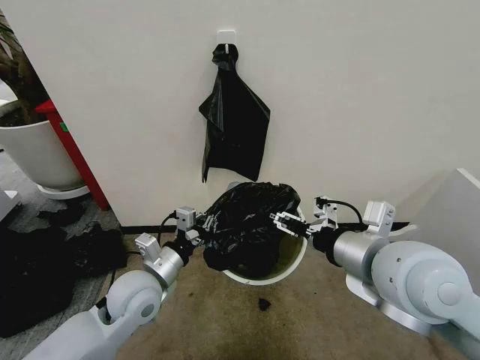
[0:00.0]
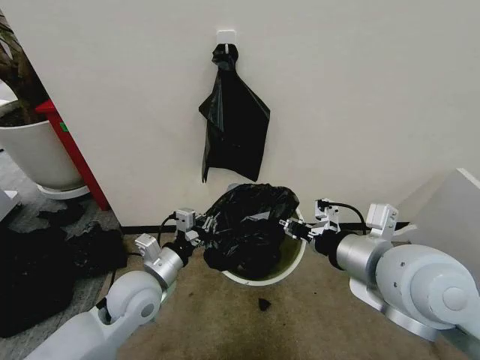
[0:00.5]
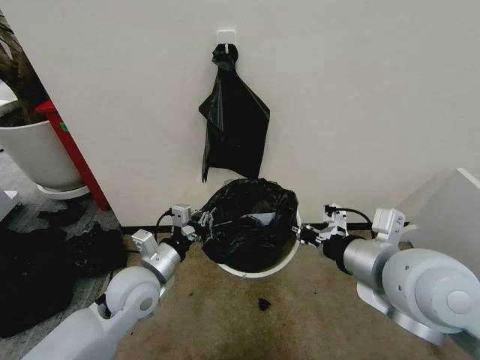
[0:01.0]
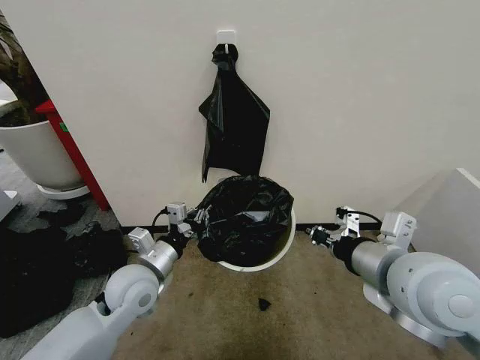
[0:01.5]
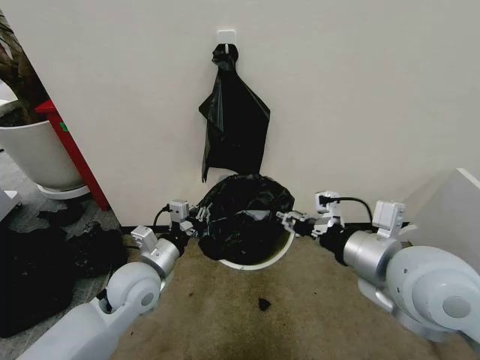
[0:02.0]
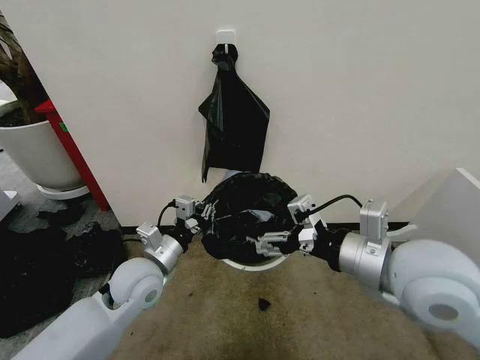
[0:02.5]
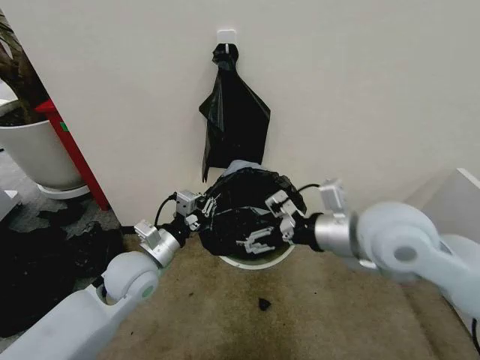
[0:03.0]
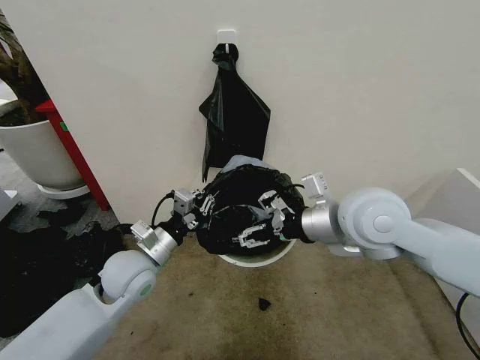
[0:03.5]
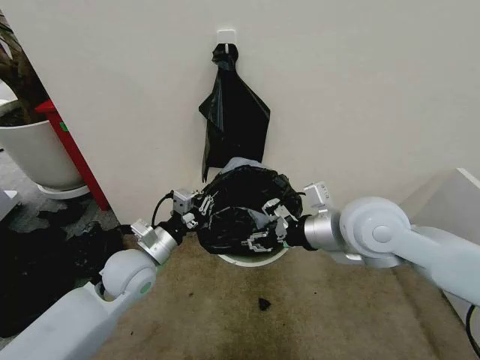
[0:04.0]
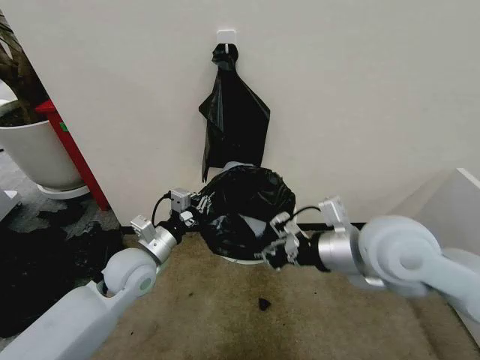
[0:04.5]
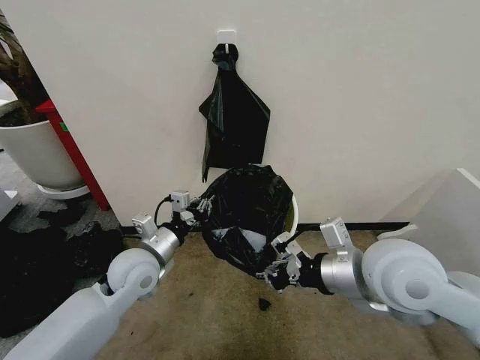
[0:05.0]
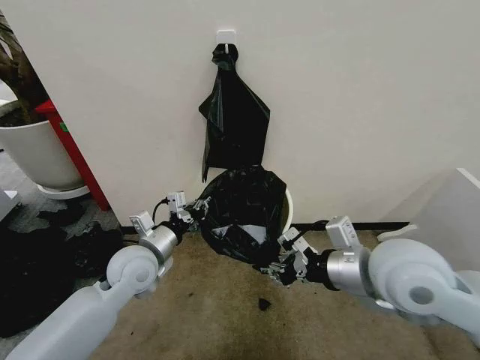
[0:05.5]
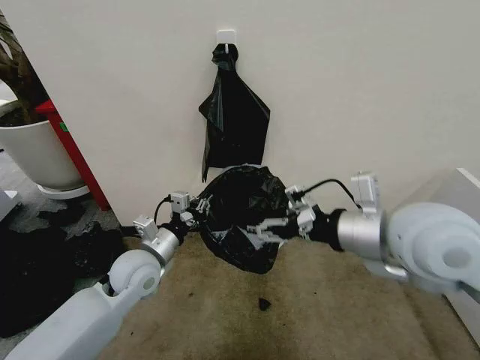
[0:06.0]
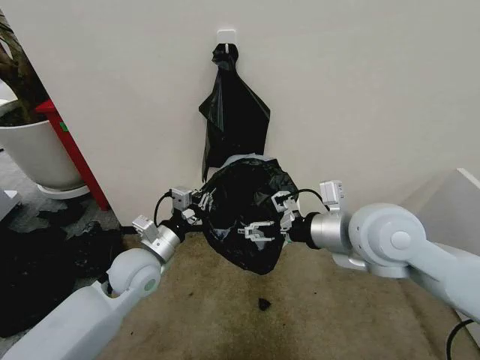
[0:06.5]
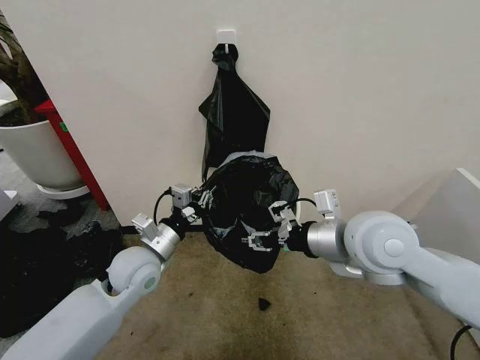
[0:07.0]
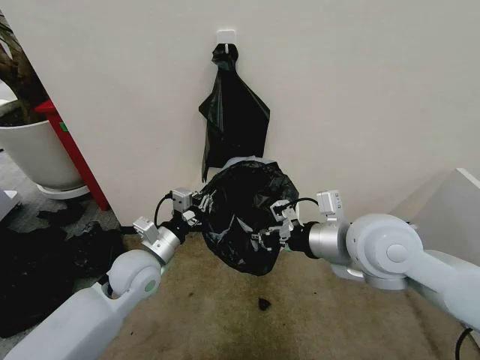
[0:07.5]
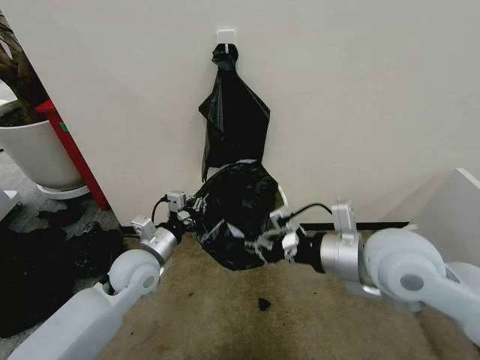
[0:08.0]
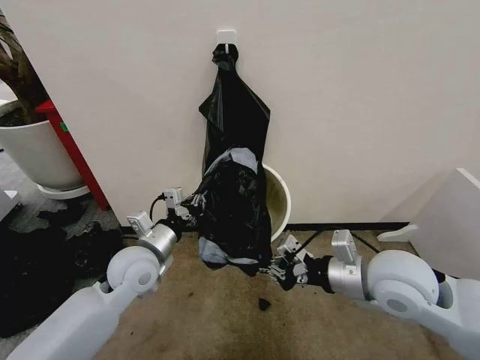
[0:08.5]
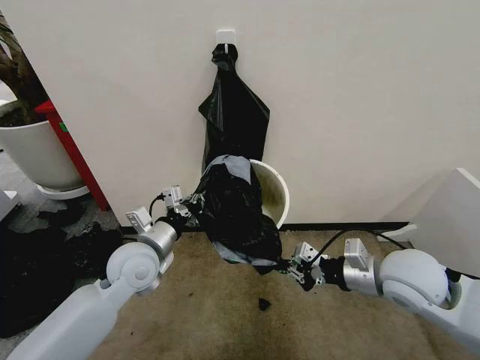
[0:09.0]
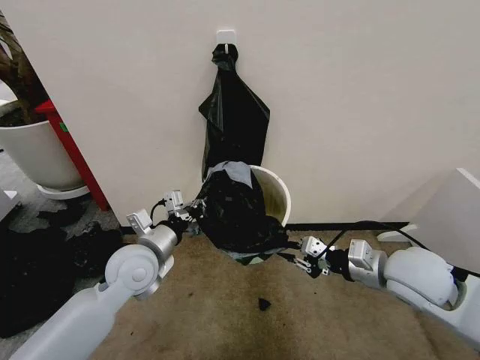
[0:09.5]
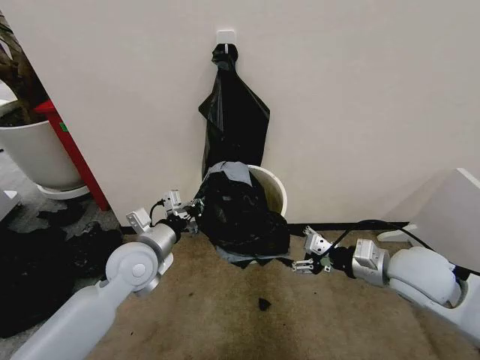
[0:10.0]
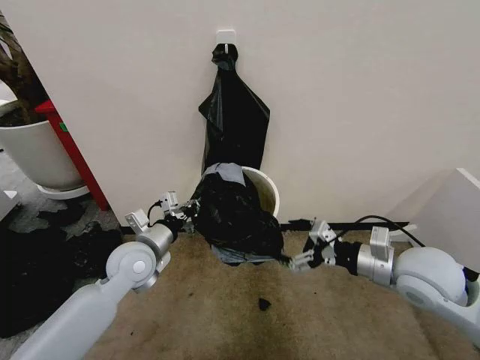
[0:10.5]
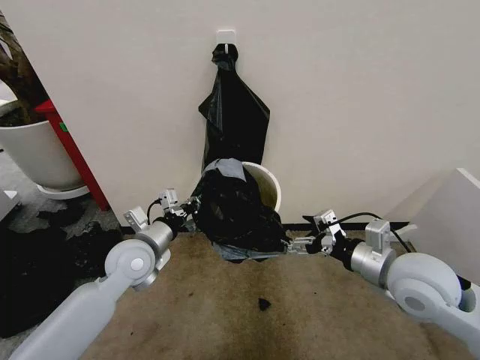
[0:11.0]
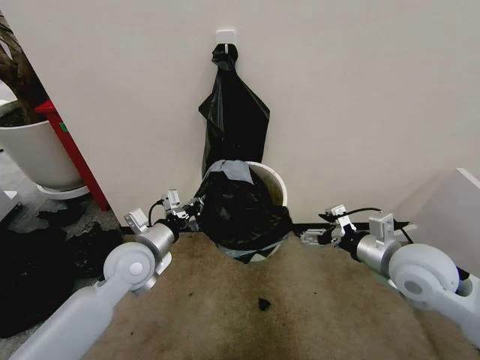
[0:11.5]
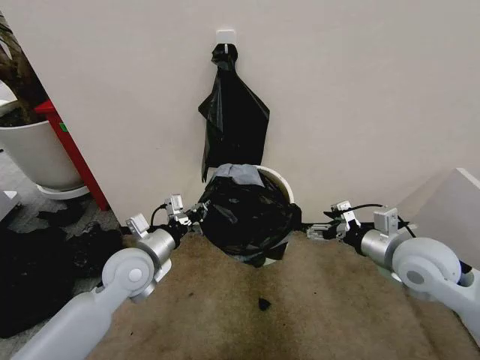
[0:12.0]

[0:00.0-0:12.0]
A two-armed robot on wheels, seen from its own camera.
Task of the whole recording: Place the garbage bag over the trash bin.
0:00.0 to 0:02.0: The grippers stay close to where they were, moving slightly.
0:02.0 to 0:04.0: The right gripper heads forward, covering about 10 cm, and opens, then closes once more.
0:04.0 to 0:06.0: The right gripper goes about 5 cm backward, and closes and opens again.
0:06.0 to 0:08.0: The right gripper moves downward, some 5 cm, and closes up.
0:08.0 to 0:10.0: The right gripper is displaced downward and to the right by approximately 15 cm, and opens up.

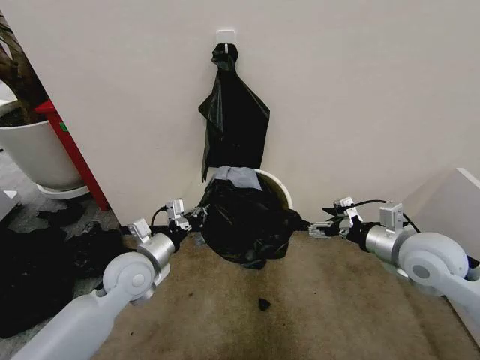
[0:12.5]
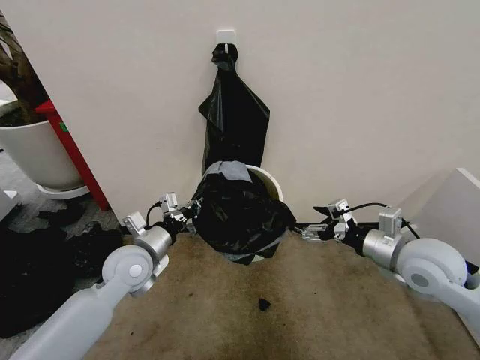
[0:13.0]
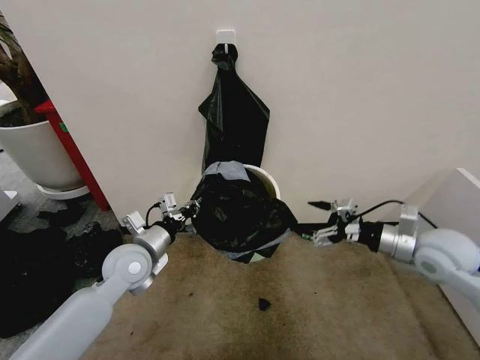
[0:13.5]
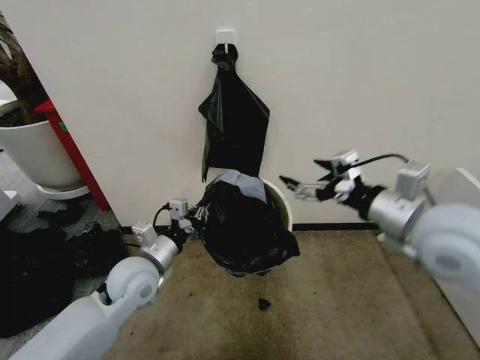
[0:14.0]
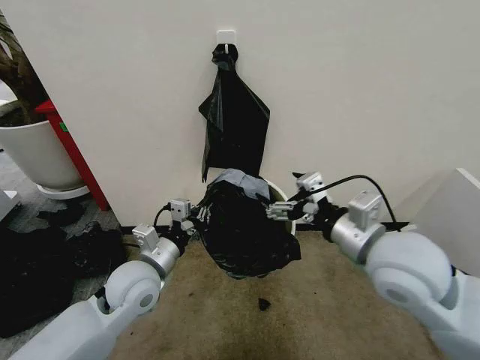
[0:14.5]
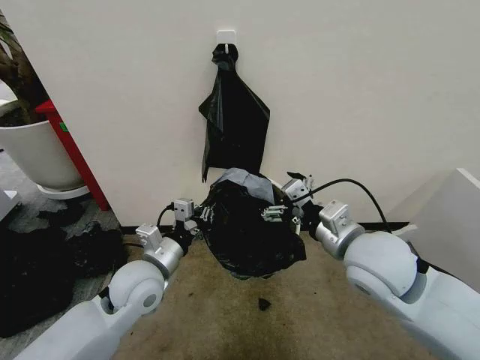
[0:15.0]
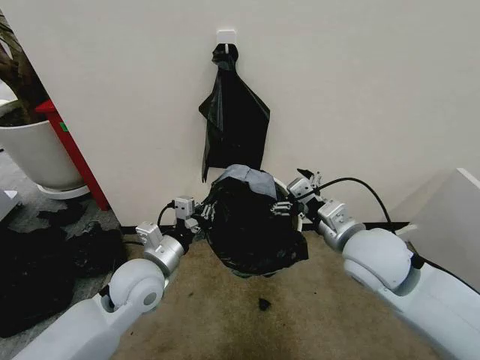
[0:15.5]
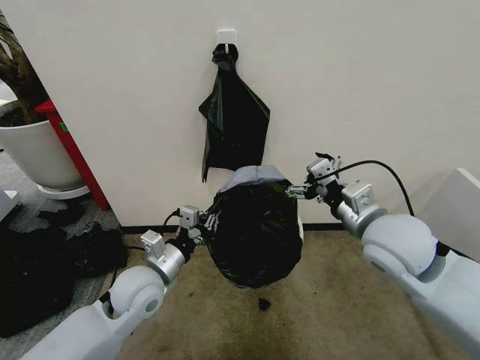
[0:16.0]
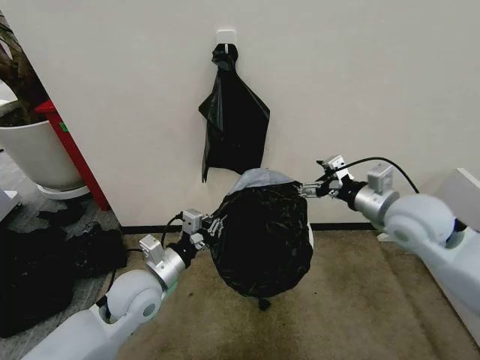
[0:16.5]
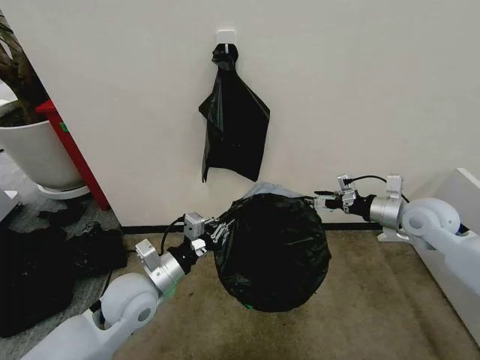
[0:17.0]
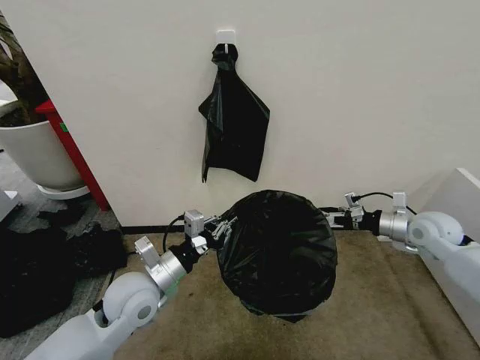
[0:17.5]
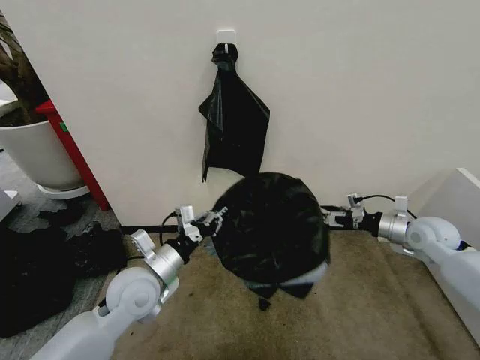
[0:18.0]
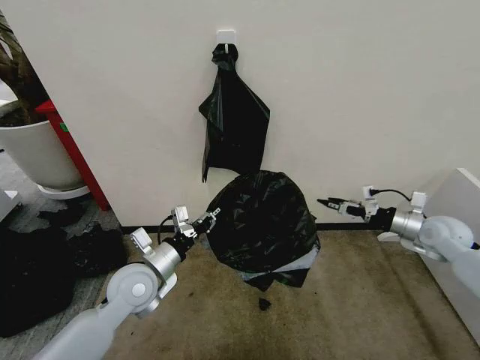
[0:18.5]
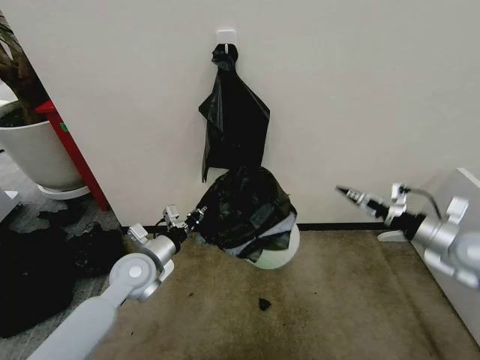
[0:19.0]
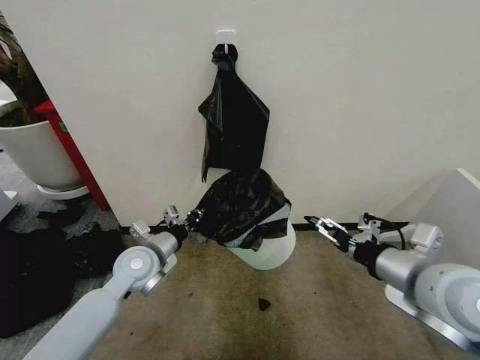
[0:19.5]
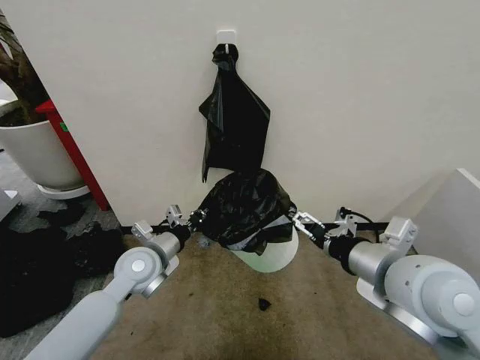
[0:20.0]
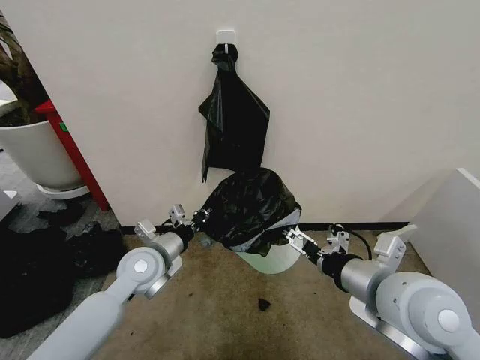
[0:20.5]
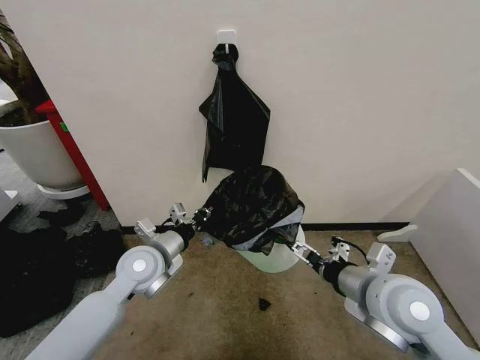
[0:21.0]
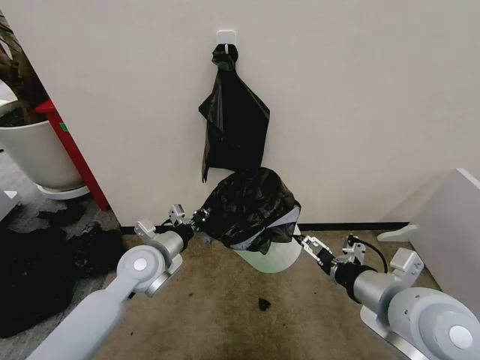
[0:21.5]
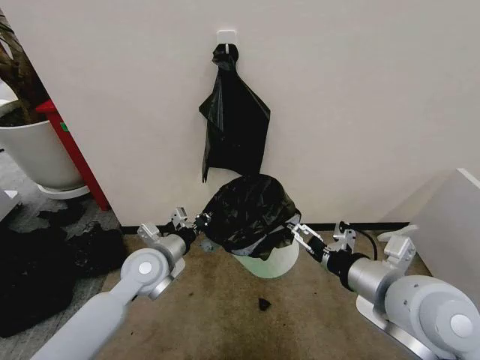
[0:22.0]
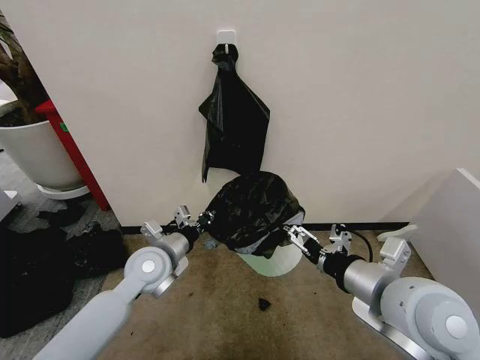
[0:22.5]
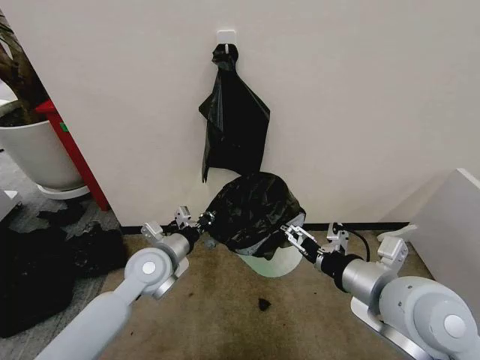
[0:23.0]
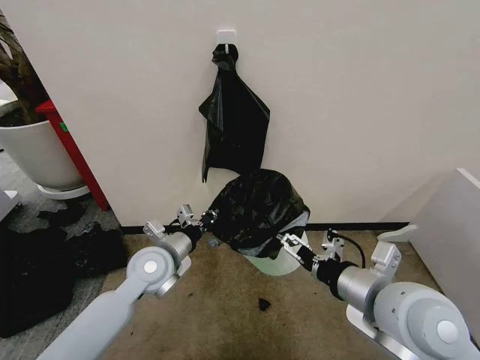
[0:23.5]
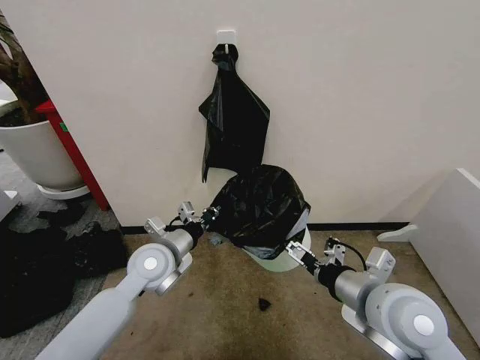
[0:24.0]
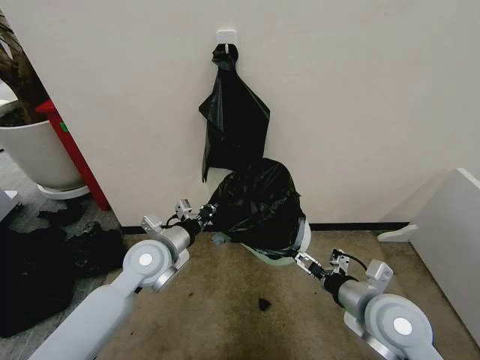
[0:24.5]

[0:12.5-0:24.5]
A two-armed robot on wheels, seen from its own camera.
Task of the whole recording: Place the garbage bag over the trash bin.
0:12.5 to 0:14.5: The right gripper shifts roughly 15 cm to the left, upward and backward.
0:14.5 to 0:16.5: The right gripper is displaced forward and to the right by about 10 cm.
0:16.5 to 0:18.5: The right gripper goes approximately 20 cm to the right and downward.
0:18.5 to 0:20.5: The right gripper is displaced to the left, backward and upward by approximately 35 cm.
0:20.5 to 0:22.5: The grippers make only small movements.
0:22.5 to 0:24.5: The right gripper is displaced downward by approximately 10 cm.

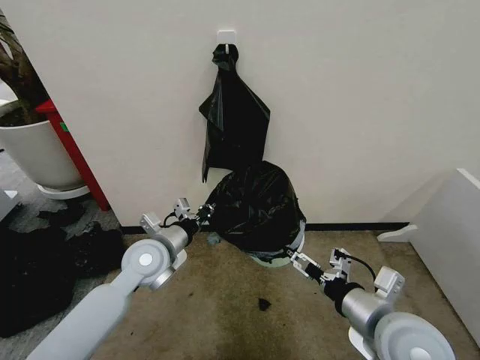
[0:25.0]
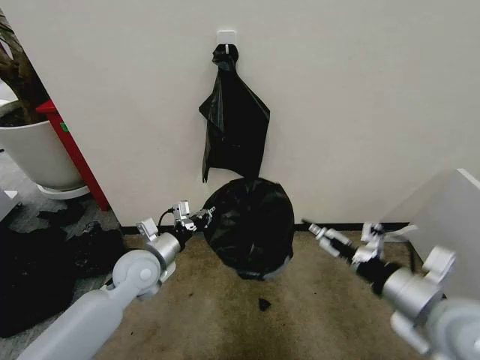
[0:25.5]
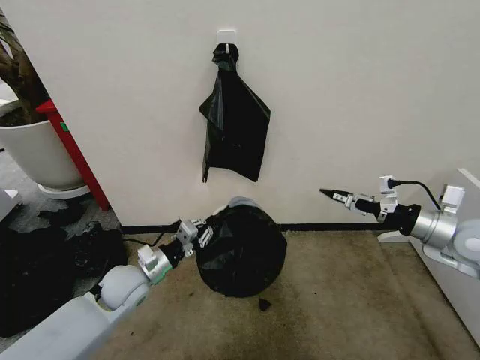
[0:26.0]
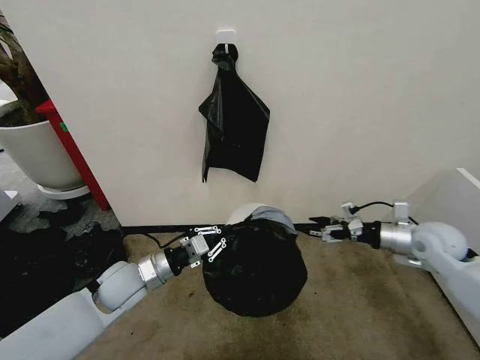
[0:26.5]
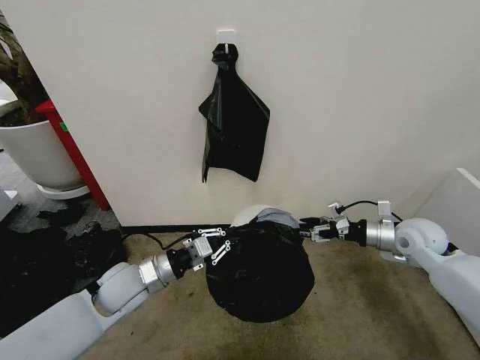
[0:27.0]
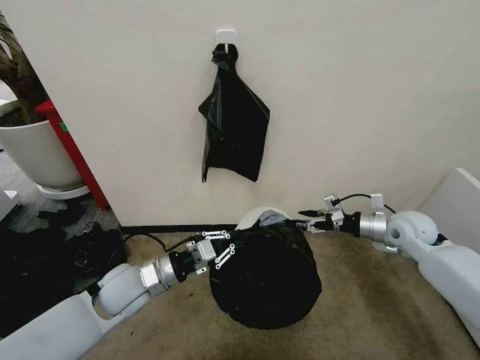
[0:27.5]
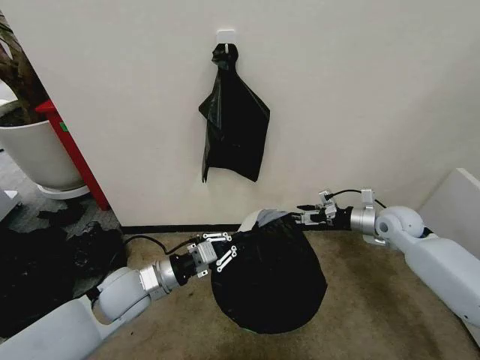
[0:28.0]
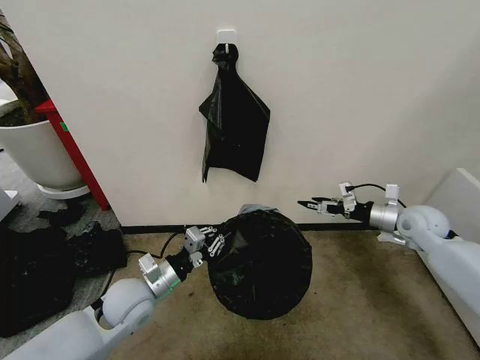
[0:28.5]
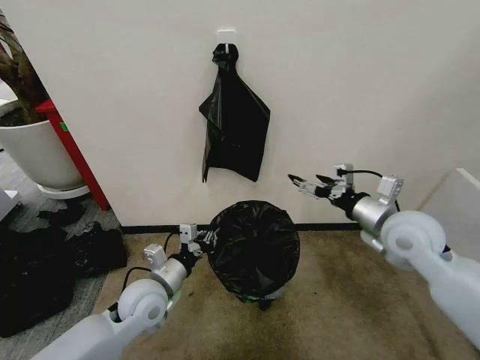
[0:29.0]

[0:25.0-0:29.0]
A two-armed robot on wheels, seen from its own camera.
Task of the whole recording: Place the garbage bag over the trash bin.
0:25.0 to 0:27.0: The right gripper moves forward and to the right, some 25 cm, while the left gripper moves some 5 cm.
0:27.0 to 0:29.0: The left gripper shifts by roughly 5 cm. The right gripper is displaced to the left, upward and backward by about 15 cm.
